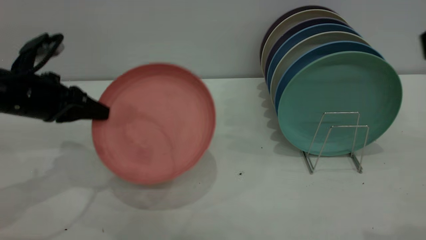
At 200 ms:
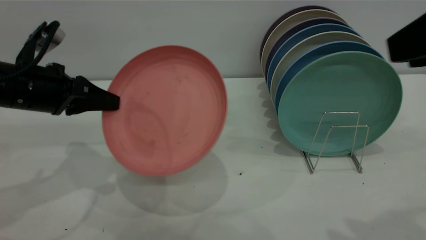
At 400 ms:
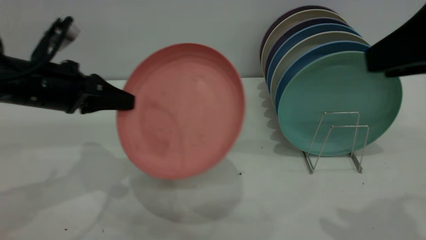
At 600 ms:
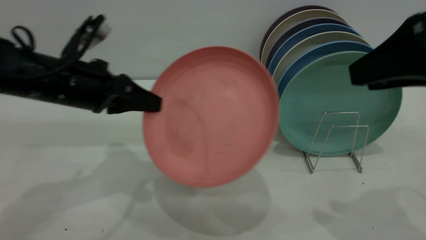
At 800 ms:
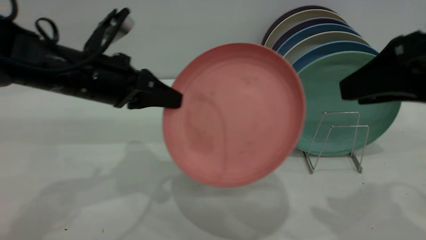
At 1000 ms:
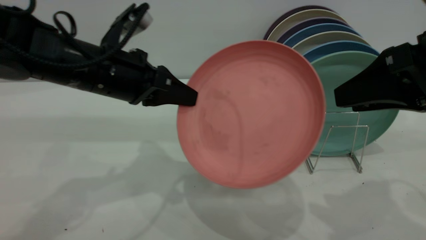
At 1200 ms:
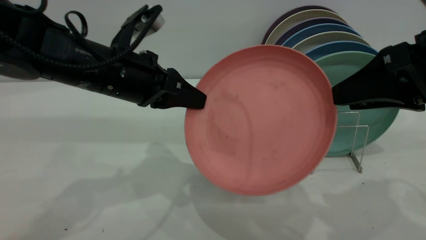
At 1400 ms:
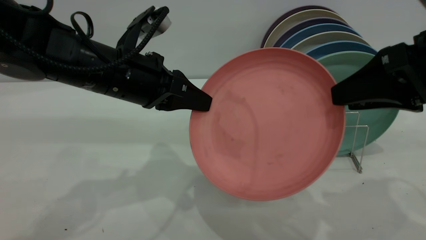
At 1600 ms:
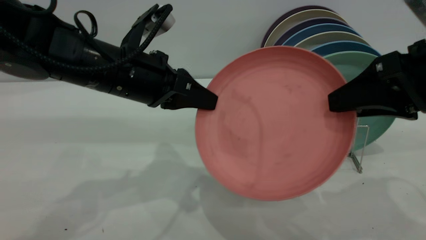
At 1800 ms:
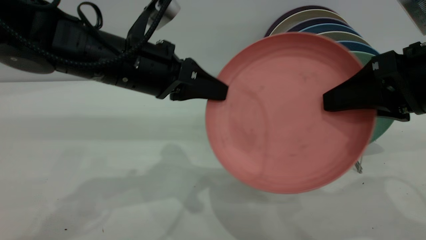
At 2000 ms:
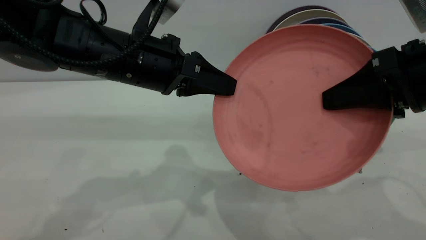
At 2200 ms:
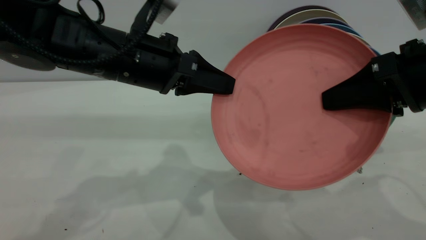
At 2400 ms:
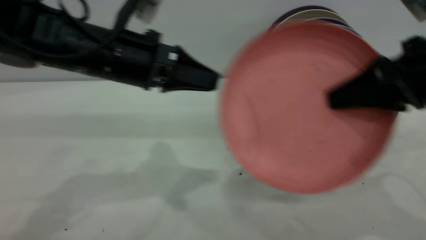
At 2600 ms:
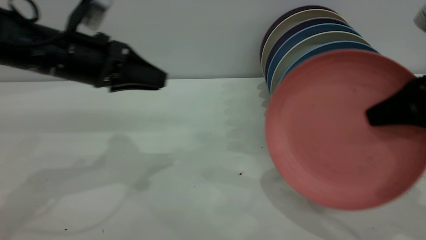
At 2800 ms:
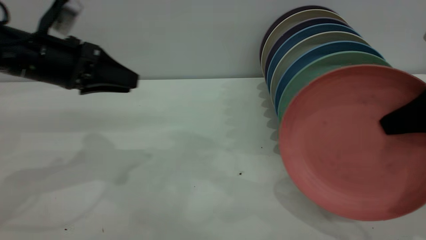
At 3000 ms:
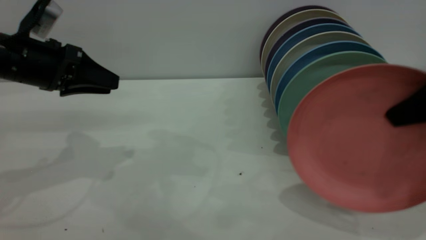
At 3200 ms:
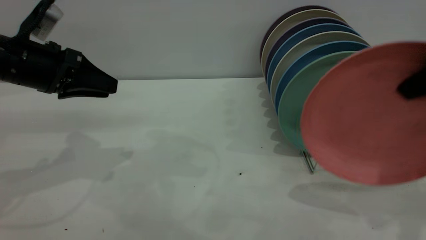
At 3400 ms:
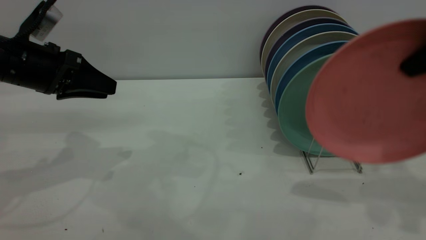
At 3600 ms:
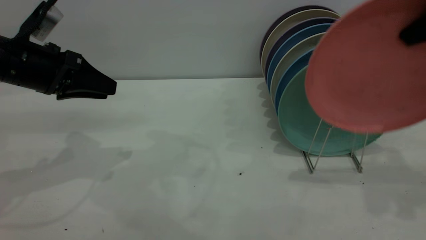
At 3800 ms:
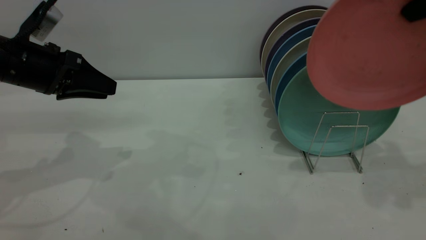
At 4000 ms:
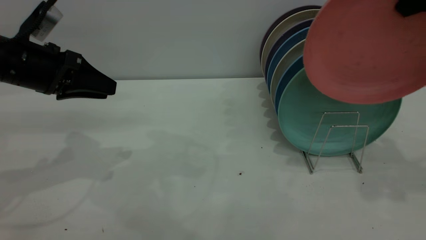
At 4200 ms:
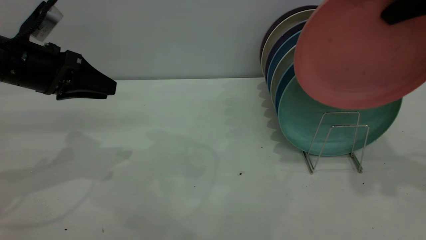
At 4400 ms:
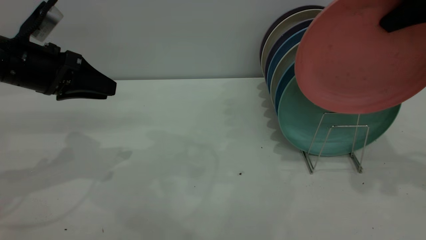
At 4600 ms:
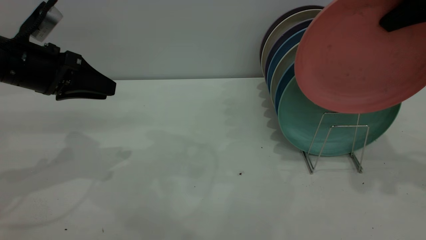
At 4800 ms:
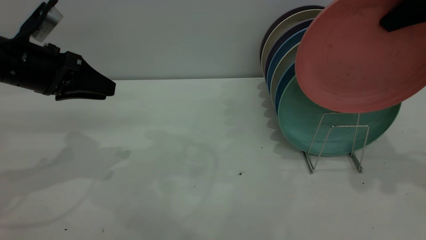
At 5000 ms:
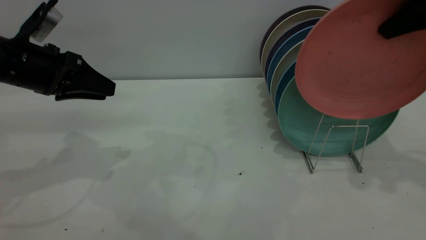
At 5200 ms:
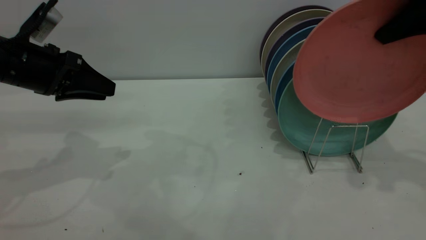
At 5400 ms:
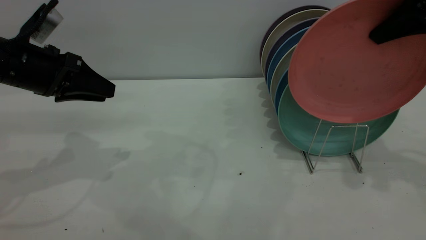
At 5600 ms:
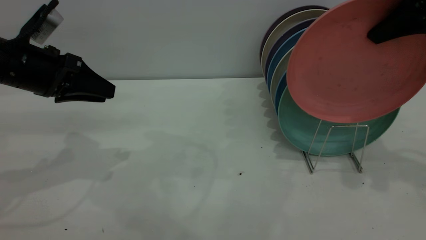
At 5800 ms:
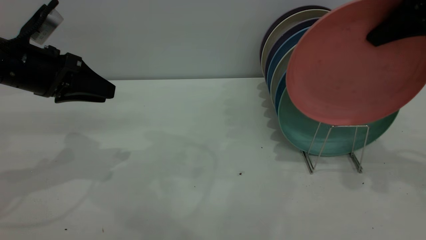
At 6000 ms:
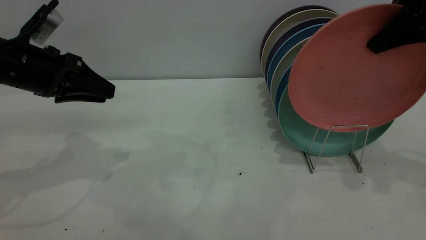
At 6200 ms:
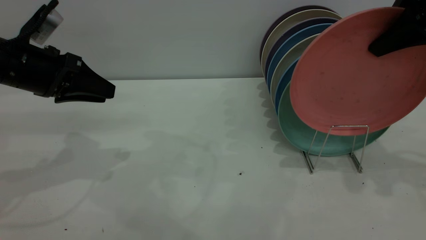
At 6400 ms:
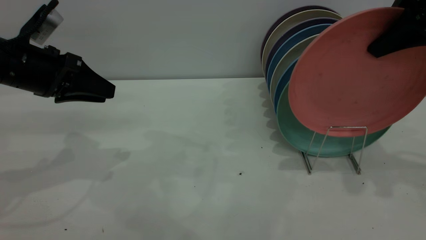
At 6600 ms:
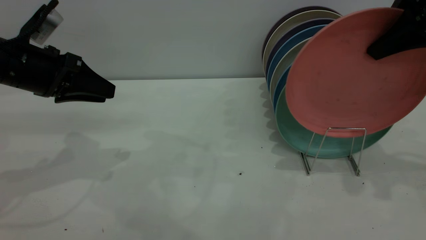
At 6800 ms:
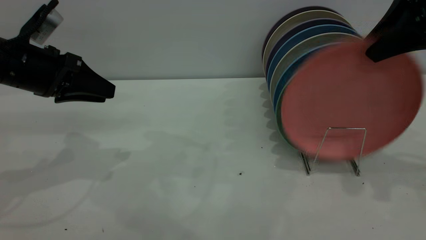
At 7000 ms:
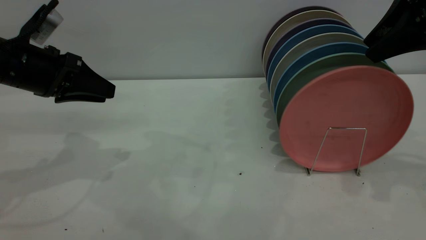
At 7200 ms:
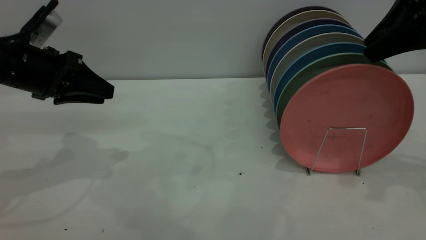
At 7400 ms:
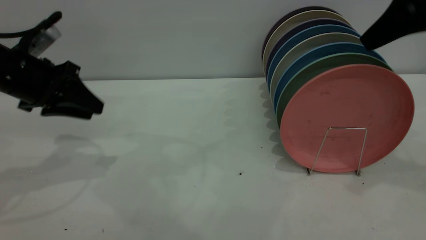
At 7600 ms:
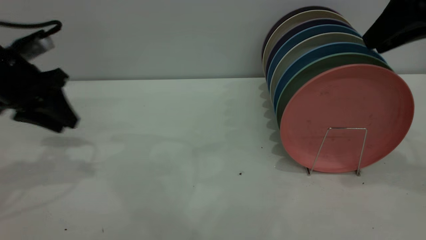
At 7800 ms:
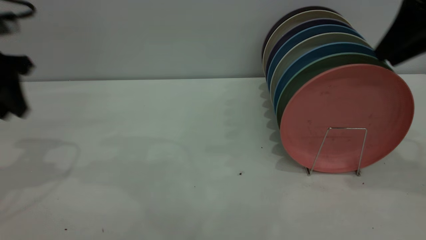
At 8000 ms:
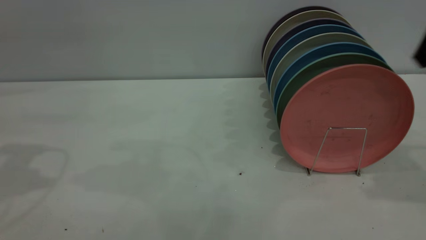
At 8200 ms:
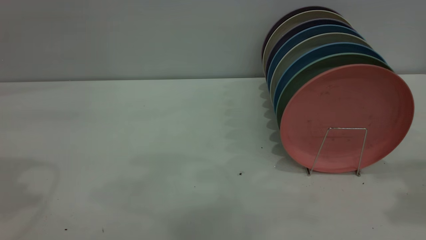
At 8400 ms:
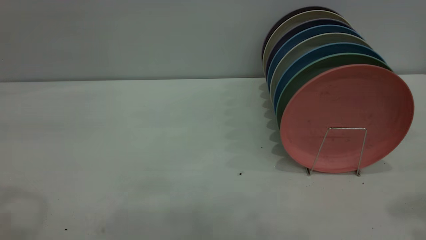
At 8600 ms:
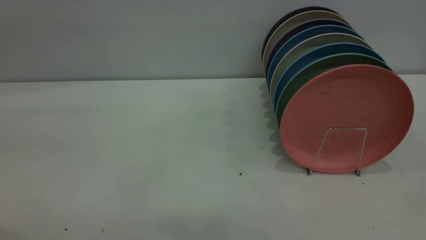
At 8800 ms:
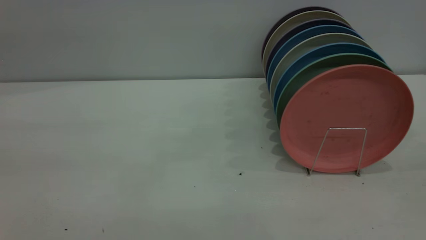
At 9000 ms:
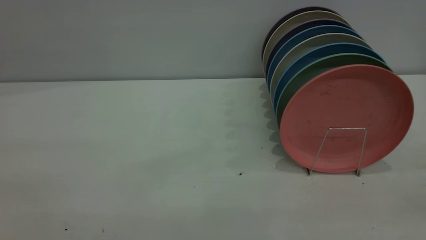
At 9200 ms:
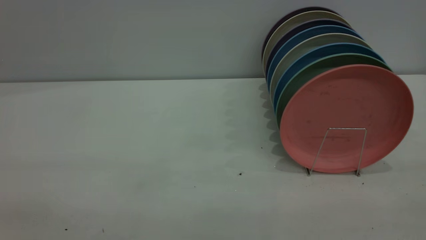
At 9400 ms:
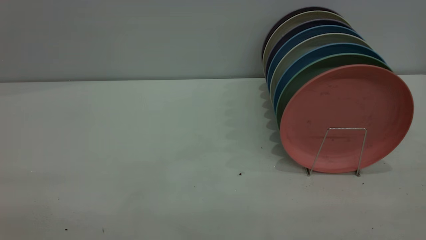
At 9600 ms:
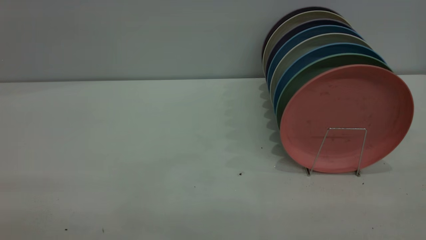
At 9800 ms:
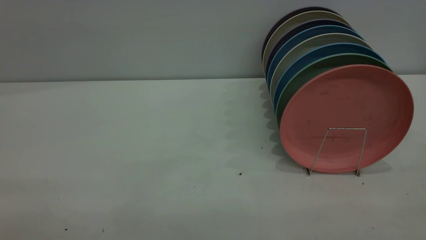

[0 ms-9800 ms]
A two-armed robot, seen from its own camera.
Task of the whole recording: put the plate on the plate rack.
Step, 0 ms to 1400 ms: Pass the plate from the left gripper to the right gripper.
Step, 1600 ms to 7200 ms: Place the plate on the shelf.
0 ms to 1400 ms: The right gripper heads downward and forward, covering approximately 15 cm, while the left gripper moves to the right, approximately 15 cm.
1400 ms to 2800 ms: The right gripper moves to the right, some 5 cm, and closes up. Meanwhile the left gripper moves to the left, approximately 10 cm, and opens.
2800 ms to 4200 ms: The right gripper is displaced upward and forward by about 15 cm.
4200 ms to 5600 ms: The grippers stay close to where they were, moving slightly.
5600 ms to 7000 ms: The right gripper opens up.
7000 ms to 8400 ms: The right gripper travels backward and upward by roughly 20 cm. The left gripper moves upward and backward, roughly 25 cm.
